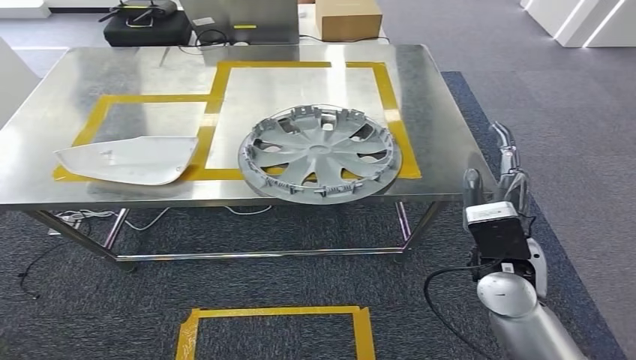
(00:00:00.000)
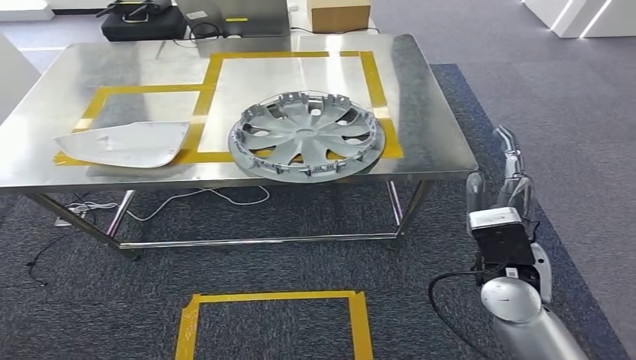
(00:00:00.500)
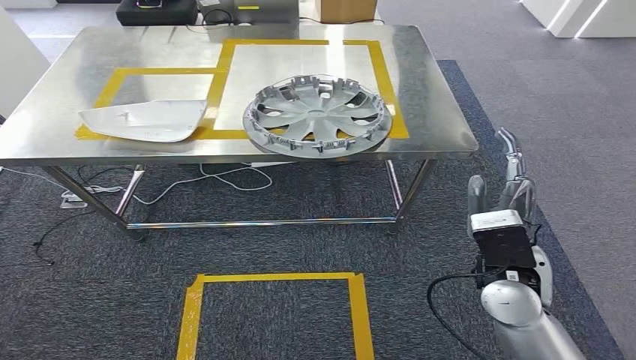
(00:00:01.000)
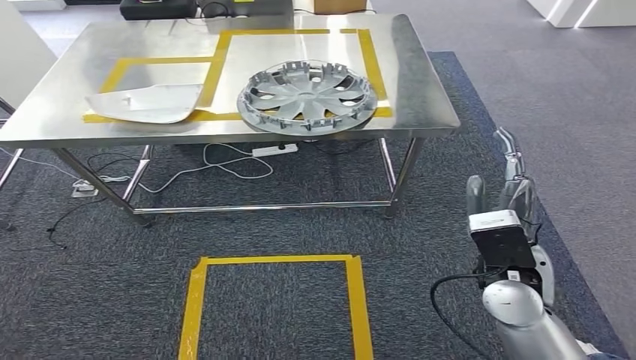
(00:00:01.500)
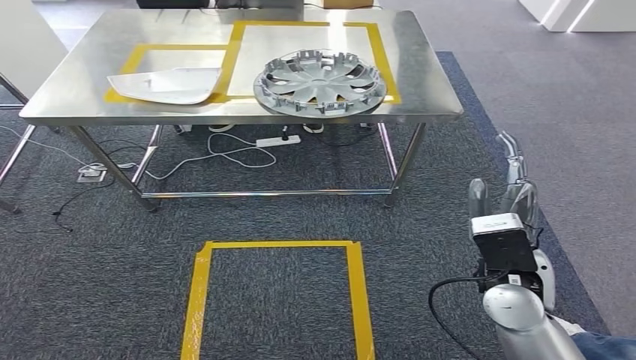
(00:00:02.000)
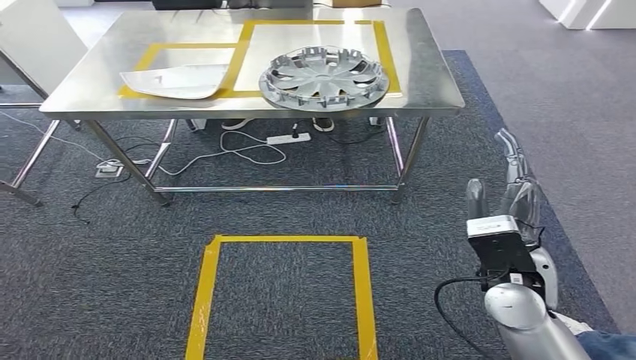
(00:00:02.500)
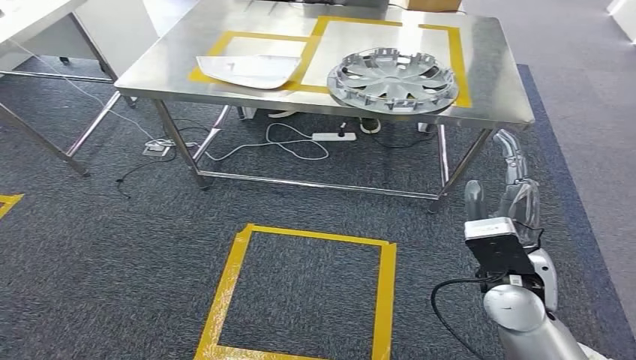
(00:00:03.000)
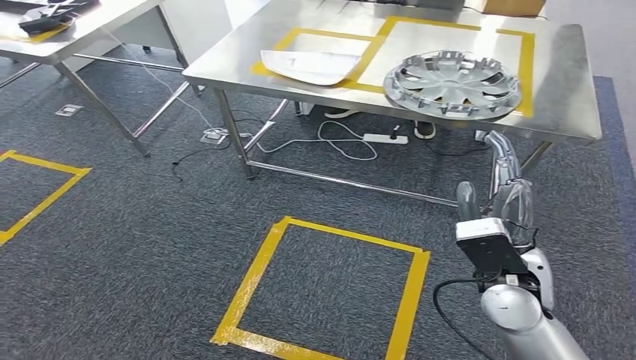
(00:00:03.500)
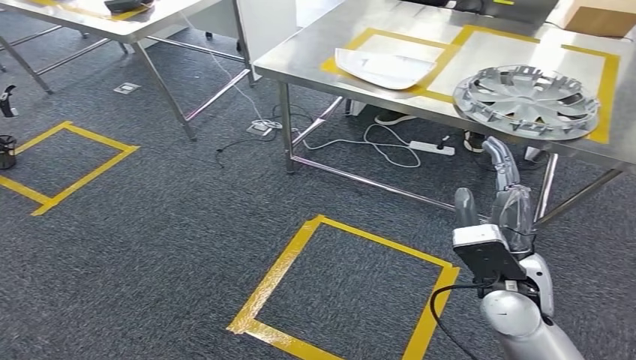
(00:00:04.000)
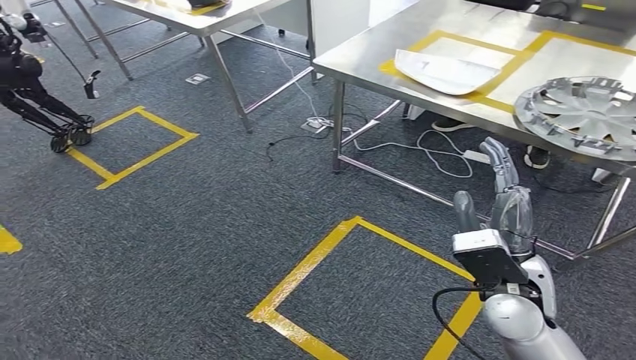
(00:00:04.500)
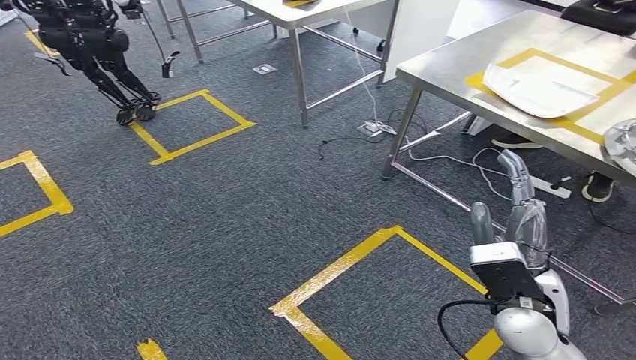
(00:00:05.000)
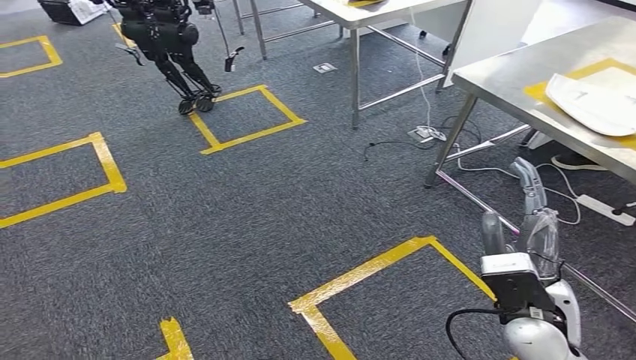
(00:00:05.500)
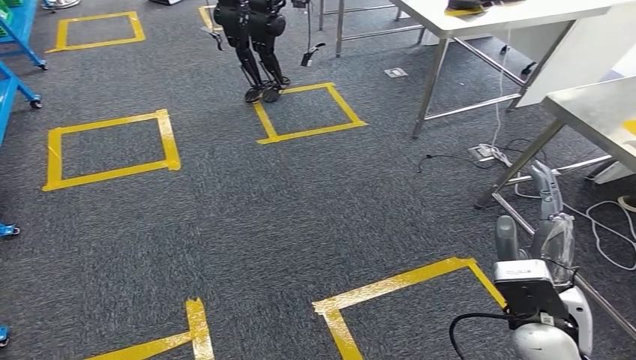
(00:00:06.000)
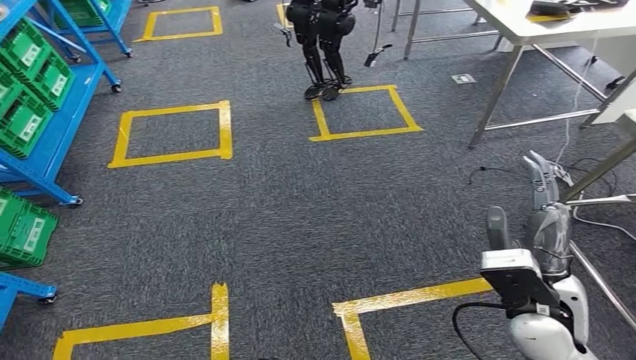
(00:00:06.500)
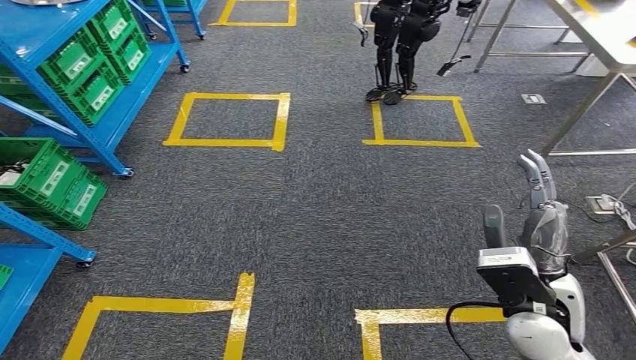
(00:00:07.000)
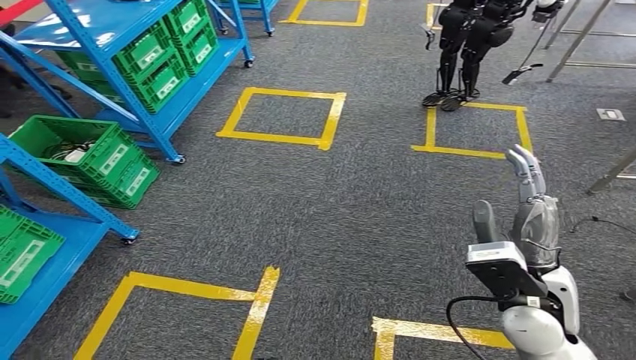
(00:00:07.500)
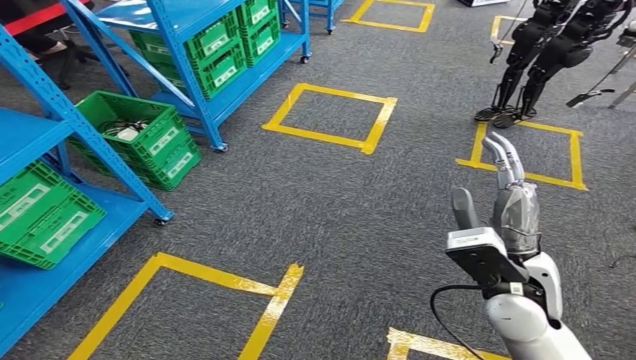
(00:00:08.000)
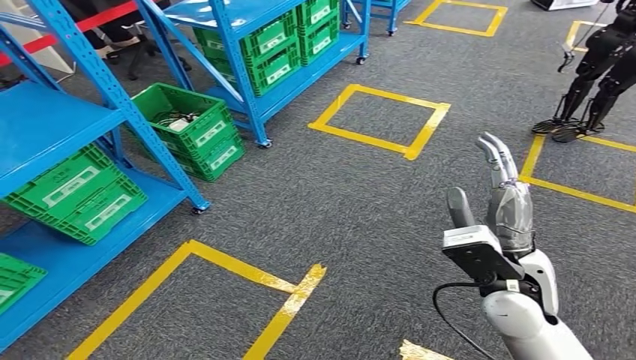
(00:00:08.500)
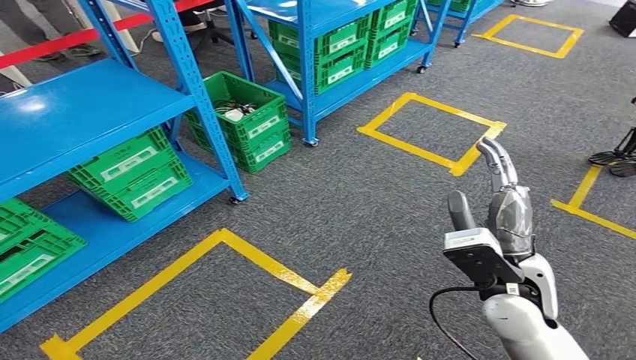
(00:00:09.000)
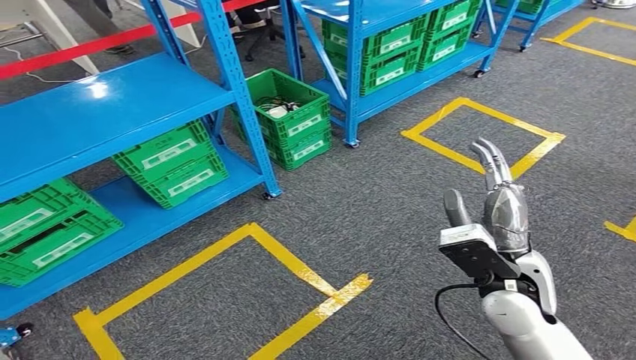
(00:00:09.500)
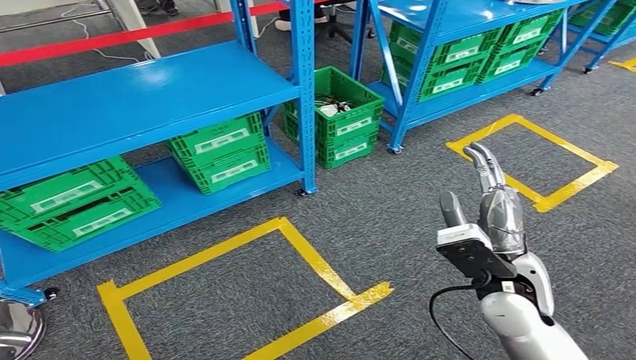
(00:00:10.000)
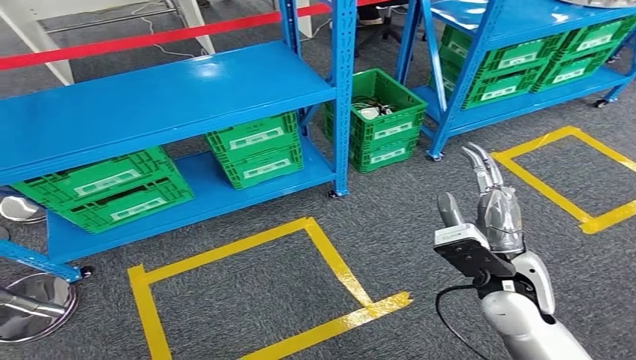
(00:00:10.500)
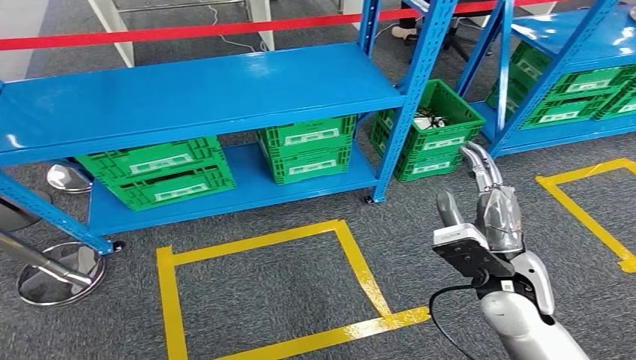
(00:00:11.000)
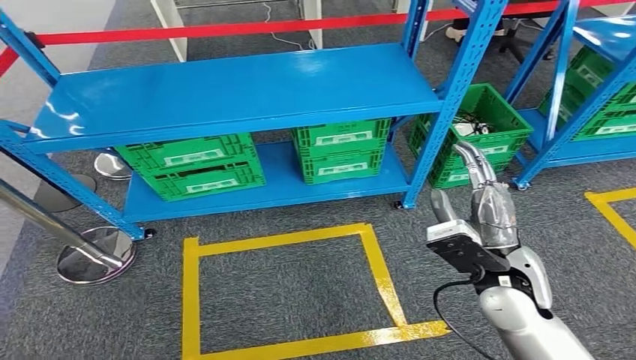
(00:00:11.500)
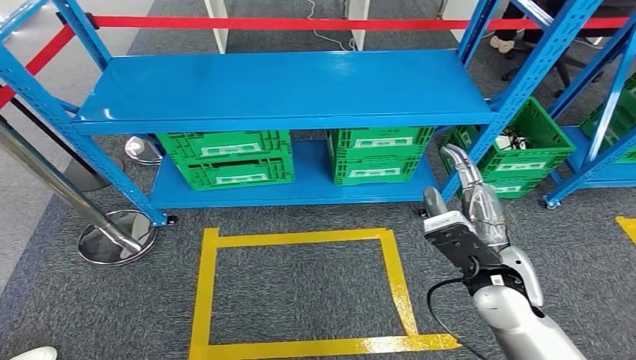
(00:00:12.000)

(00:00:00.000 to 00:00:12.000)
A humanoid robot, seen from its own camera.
Step, 00:00:00.000 - 00:00:04.500: Insert the small component into the corresponding slot on the workbench.

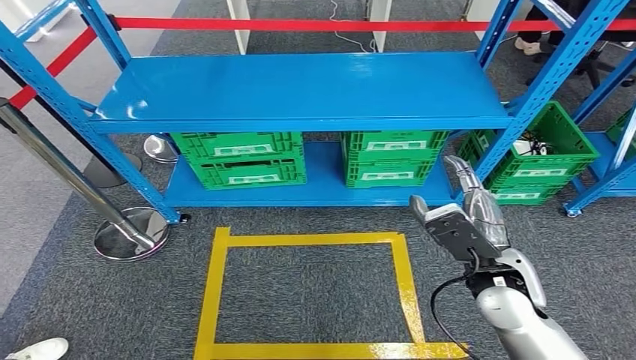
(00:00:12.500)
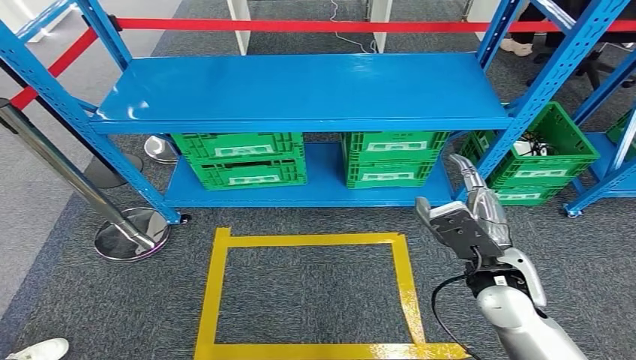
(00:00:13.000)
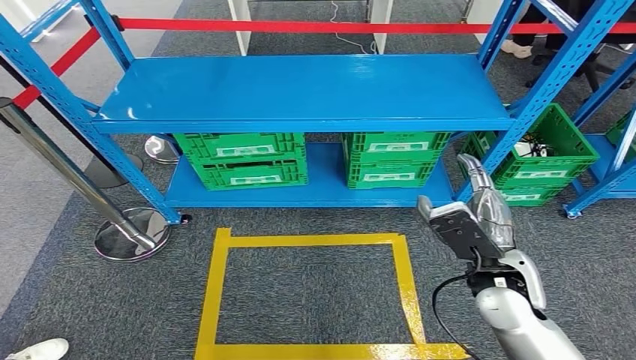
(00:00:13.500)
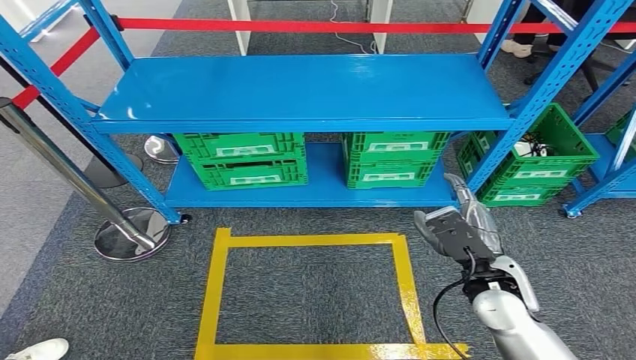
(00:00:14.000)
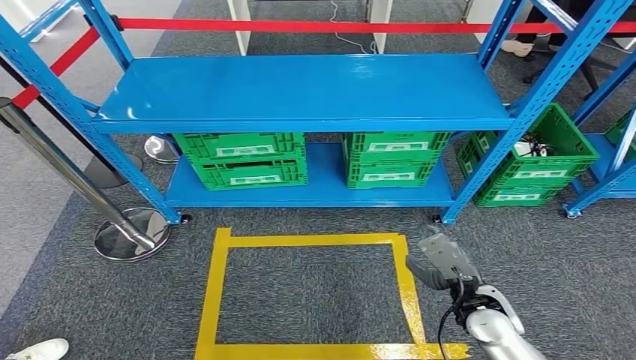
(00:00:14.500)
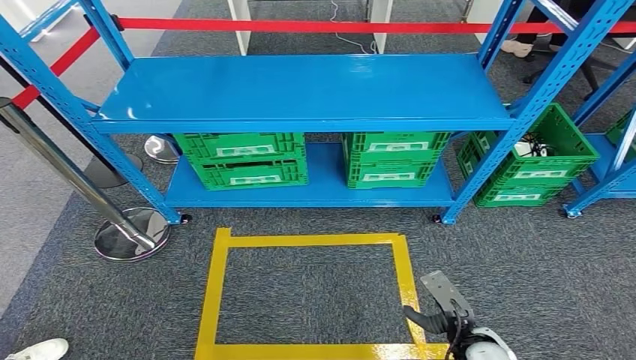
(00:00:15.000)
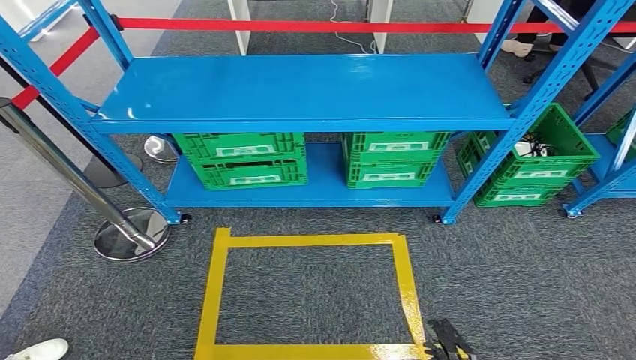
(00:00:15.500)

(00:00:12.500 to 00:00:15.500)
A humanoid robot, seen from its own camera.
Step, 00:00:12.500 - 00:00:15.500: Return to the initial position at the workbench.
00:00:12.500 - 00:00:14.000: The hands move only a little.
00:00:14.000 - 00:00:15.500: The right hand shifts approximately 30 cm downward and backward.
